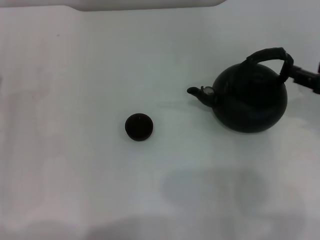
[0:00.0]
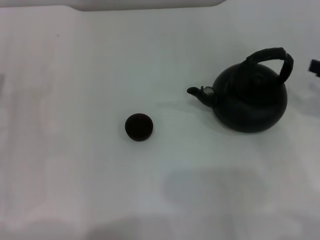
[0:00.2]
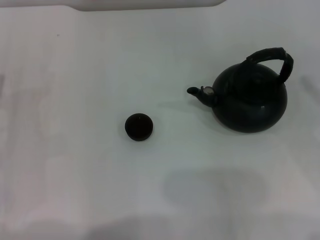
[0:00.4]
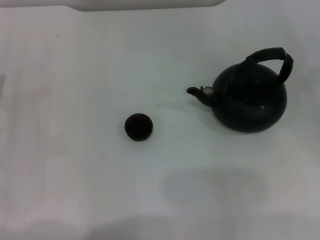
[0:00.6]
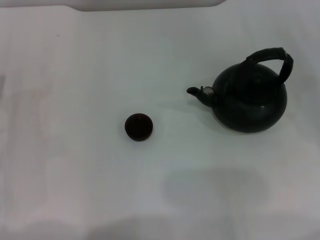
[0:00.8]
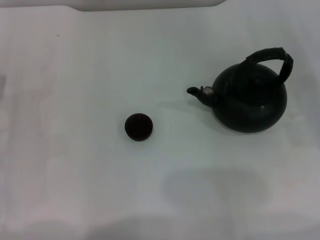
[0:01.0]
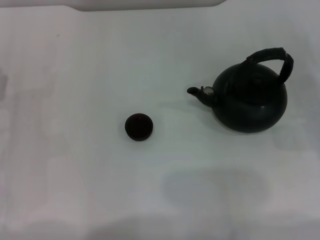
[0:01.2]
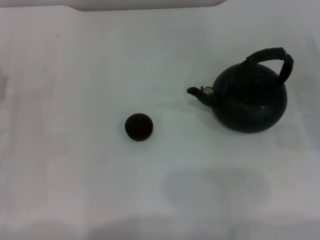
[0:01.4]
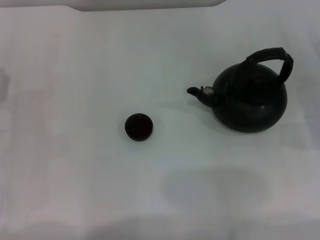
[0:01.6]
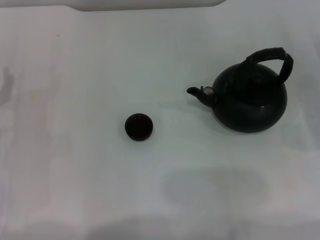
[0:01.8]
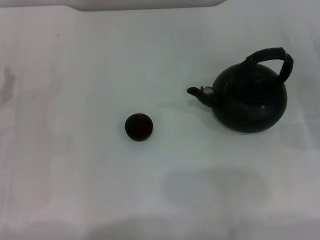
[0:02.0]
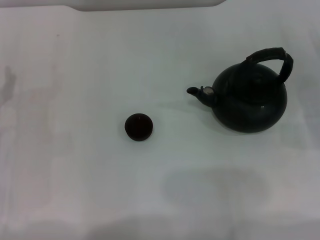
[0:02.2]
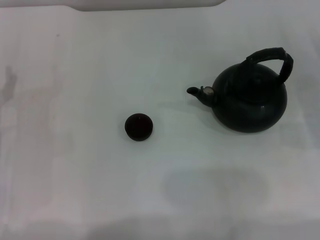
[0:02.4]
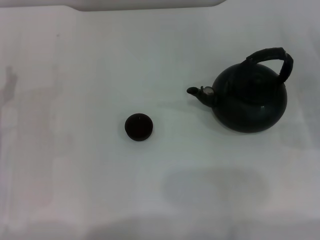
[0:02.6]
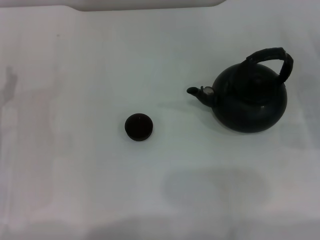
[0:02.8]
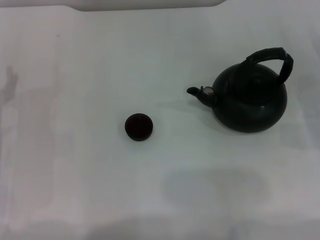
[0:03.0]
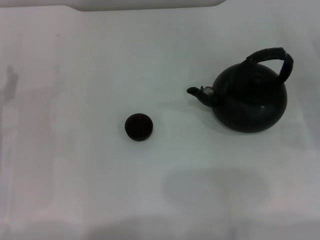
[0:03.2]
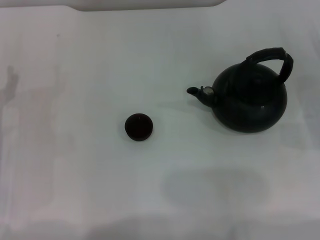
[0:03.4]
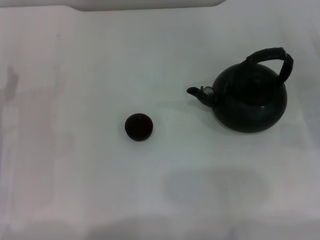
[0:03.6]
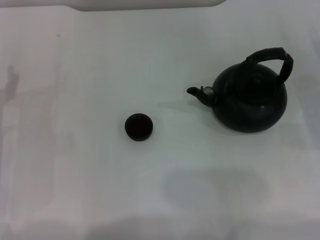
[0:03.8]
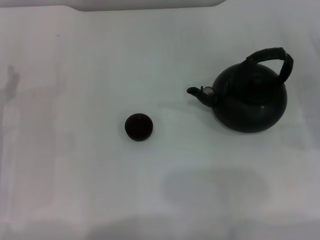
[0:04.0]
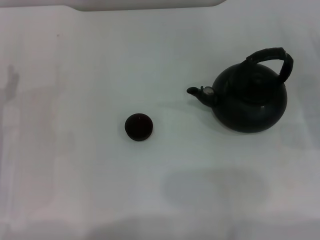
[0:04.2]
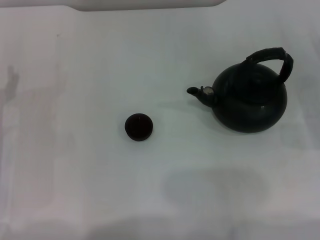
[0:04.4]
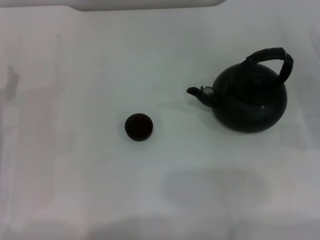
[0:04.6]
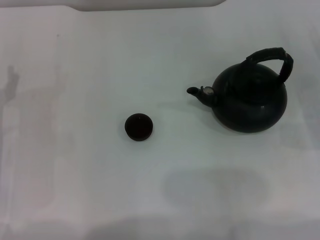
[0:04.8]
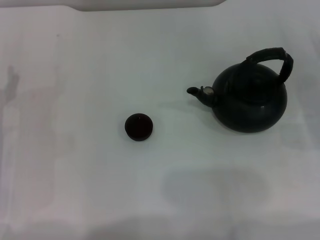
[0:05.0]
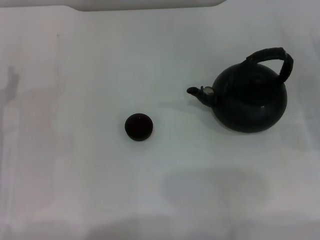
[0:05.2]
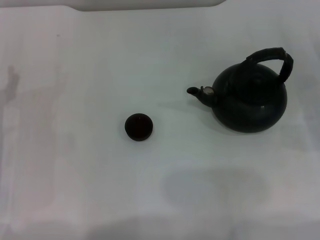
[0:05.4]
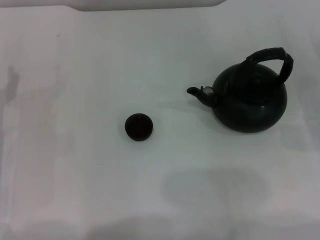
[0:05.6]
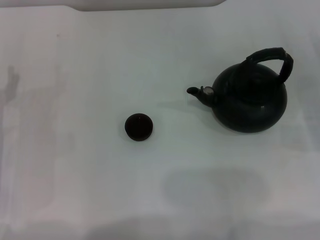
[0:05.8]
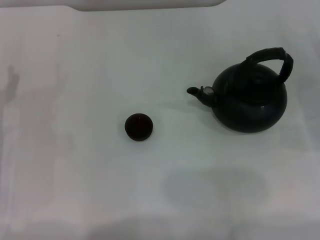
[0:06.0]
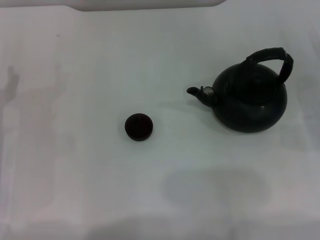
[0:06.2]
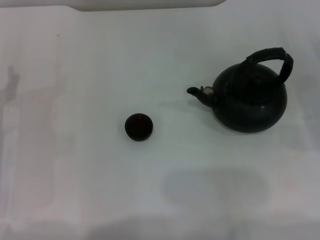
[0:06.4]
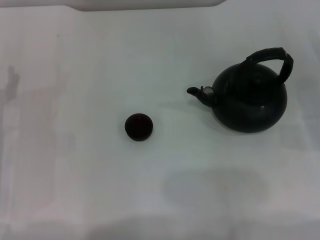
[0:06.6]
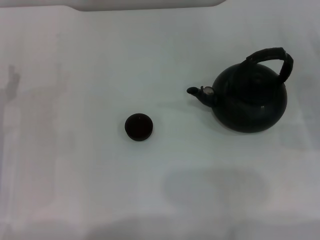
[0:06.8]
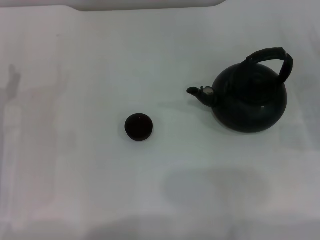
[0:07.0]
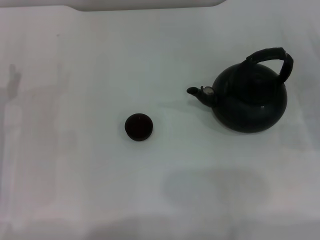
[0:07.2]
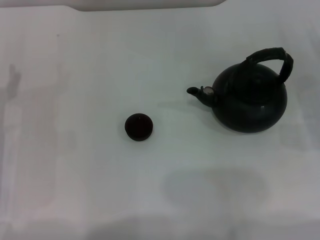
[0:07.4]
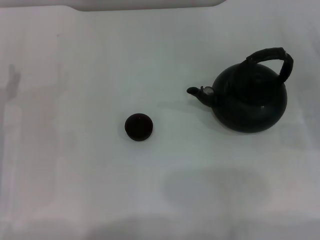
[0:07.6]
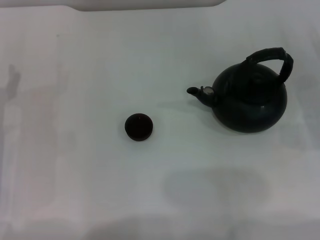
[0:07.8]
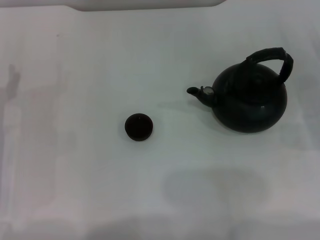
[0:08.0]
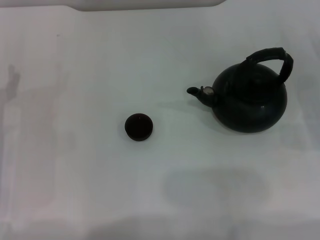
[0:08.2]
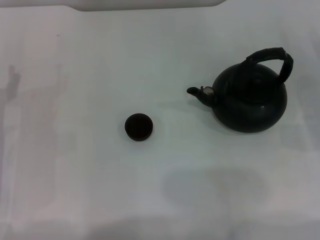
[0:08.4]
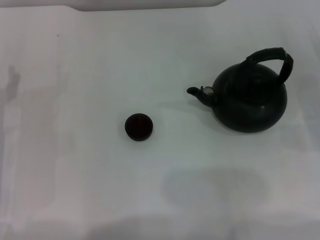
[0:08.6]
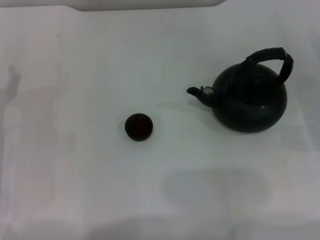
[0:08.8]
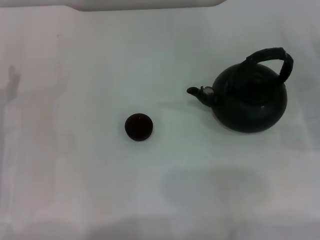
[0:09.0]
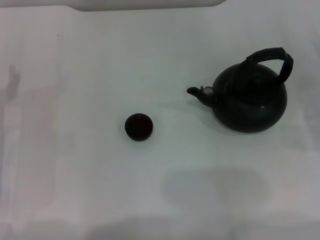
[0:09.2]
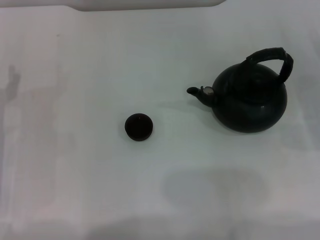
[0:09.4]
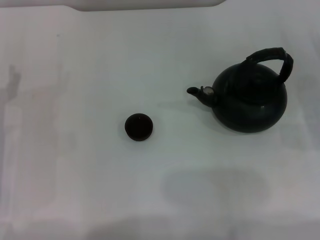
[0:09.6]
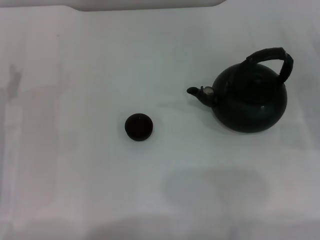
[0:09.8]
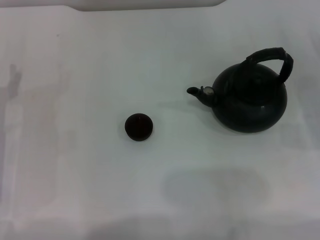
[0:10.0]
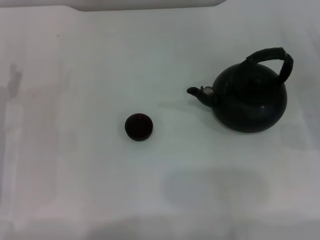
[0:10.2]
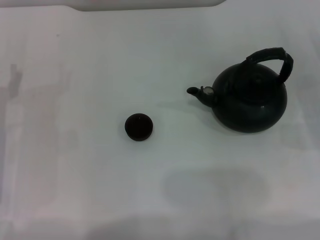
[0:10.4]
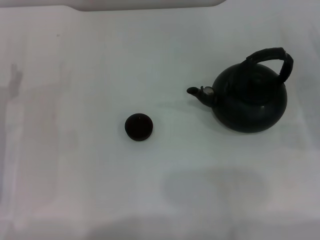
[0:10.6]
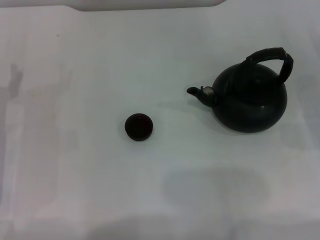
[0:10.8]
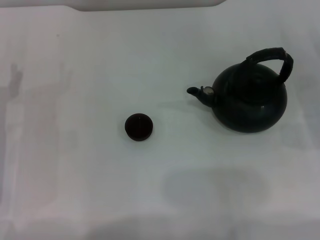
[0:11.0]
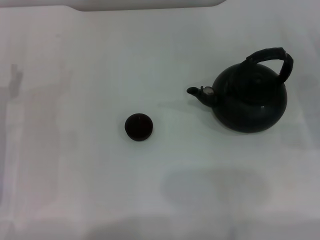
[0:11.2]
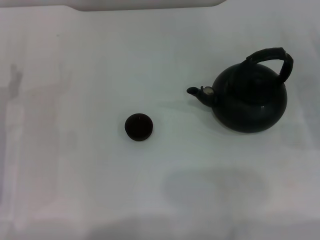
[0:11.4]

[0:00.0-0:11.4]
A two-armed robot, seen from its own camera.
Task of the whole recording: Grasp the handle of the teapot with one hand and pour tea into the teacup.
0:00.0 to 0:01.4: The right gripper goes about 15 cm downward and to the right.
0:01.4 to 0:08.6: Both grippers stay about where they are.
0:08.6 to 0:11.4: Neither gripper changes place.

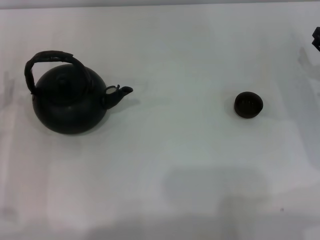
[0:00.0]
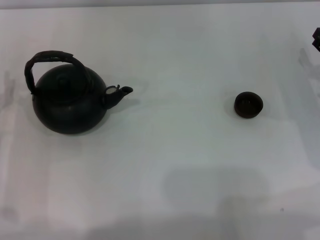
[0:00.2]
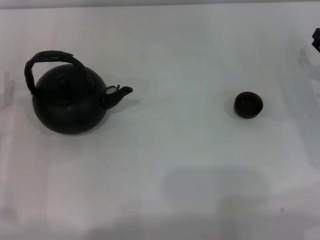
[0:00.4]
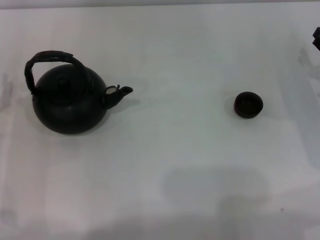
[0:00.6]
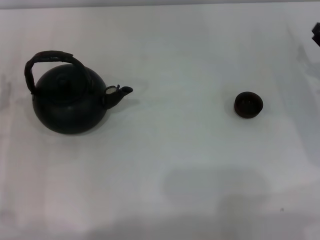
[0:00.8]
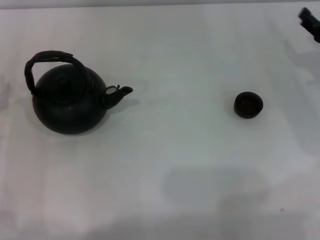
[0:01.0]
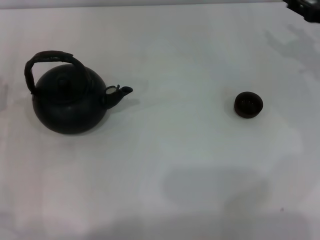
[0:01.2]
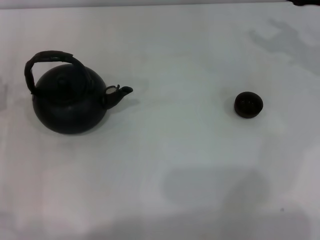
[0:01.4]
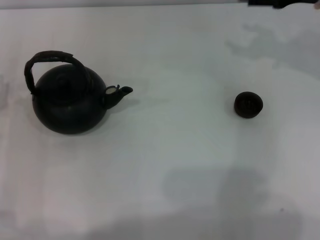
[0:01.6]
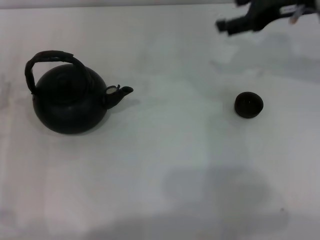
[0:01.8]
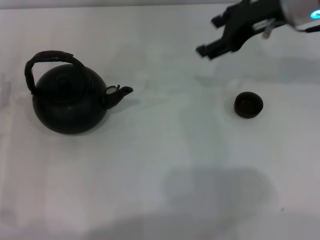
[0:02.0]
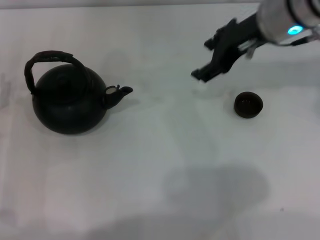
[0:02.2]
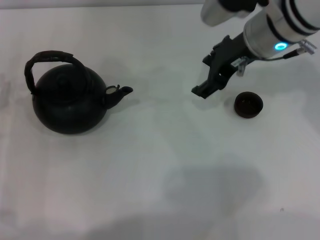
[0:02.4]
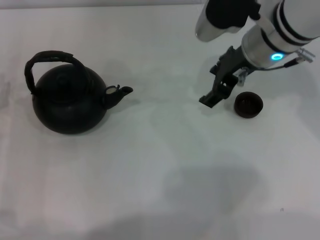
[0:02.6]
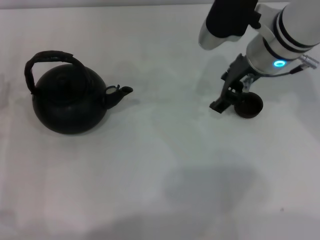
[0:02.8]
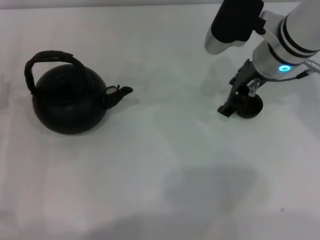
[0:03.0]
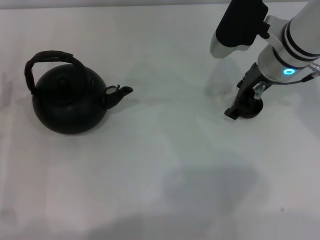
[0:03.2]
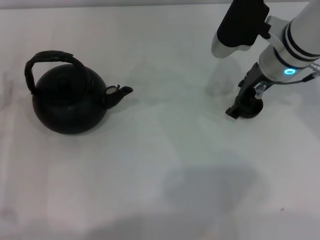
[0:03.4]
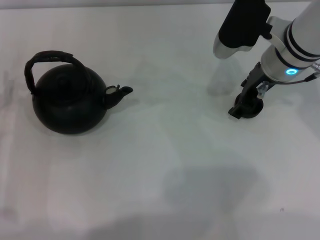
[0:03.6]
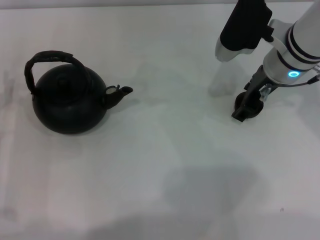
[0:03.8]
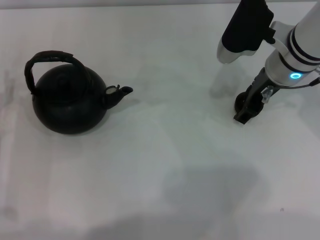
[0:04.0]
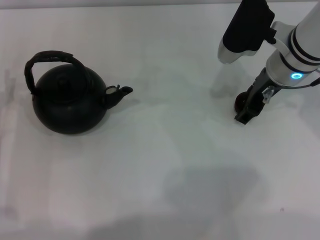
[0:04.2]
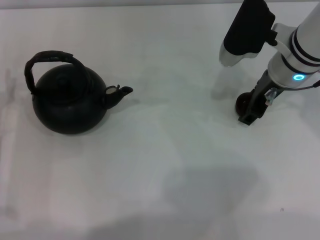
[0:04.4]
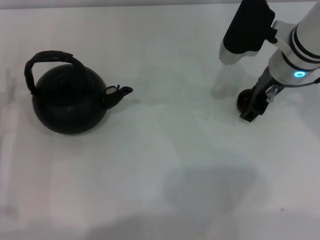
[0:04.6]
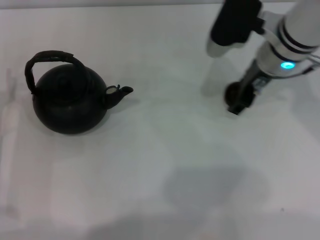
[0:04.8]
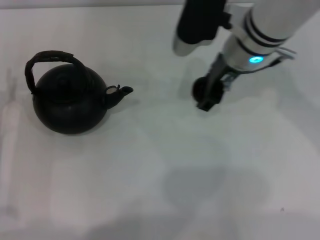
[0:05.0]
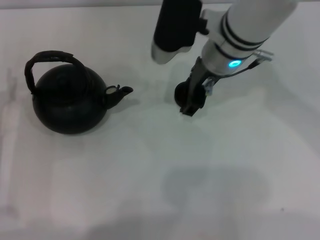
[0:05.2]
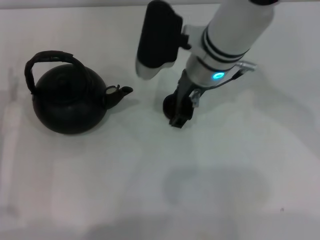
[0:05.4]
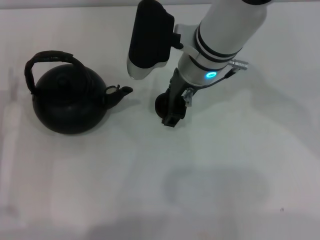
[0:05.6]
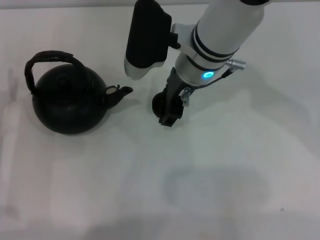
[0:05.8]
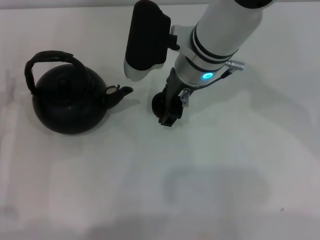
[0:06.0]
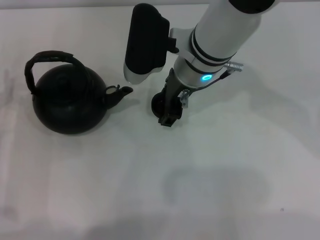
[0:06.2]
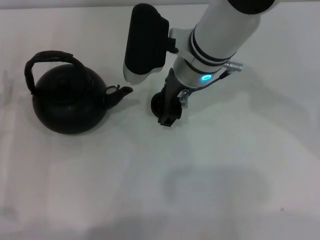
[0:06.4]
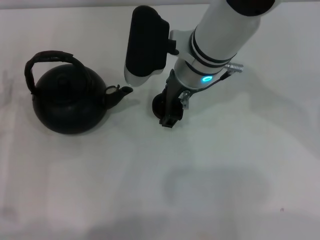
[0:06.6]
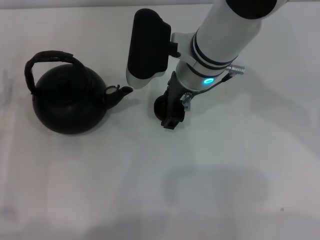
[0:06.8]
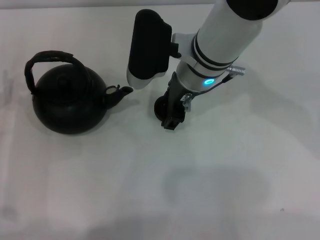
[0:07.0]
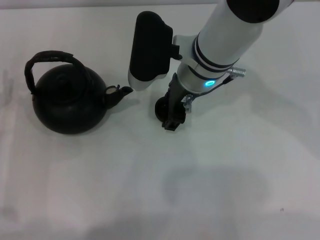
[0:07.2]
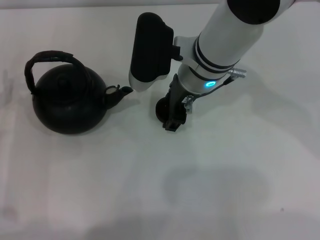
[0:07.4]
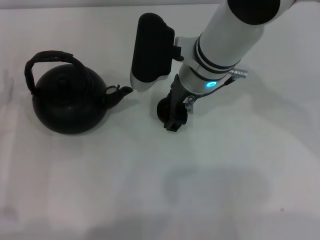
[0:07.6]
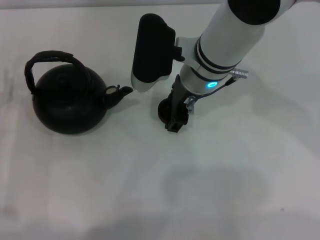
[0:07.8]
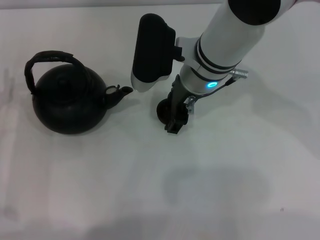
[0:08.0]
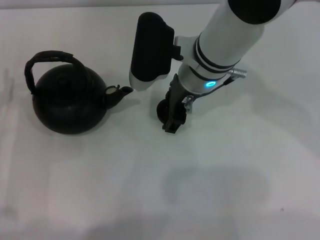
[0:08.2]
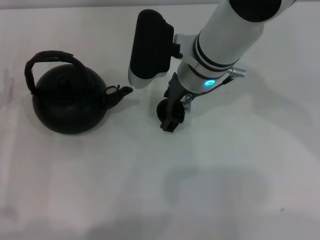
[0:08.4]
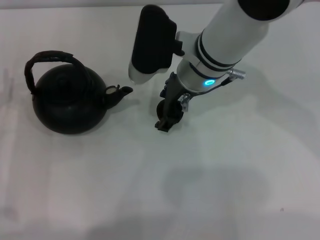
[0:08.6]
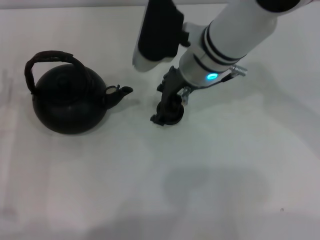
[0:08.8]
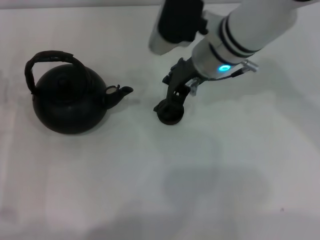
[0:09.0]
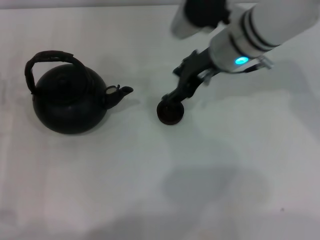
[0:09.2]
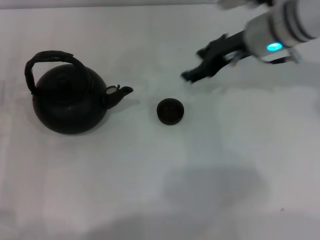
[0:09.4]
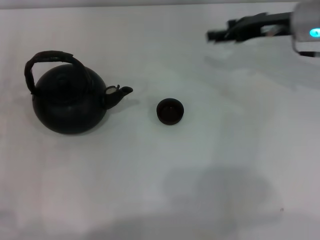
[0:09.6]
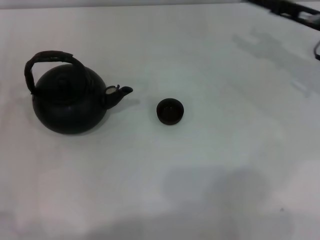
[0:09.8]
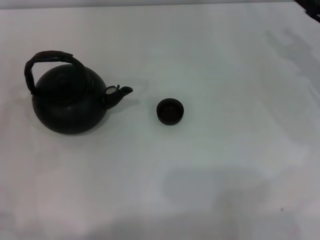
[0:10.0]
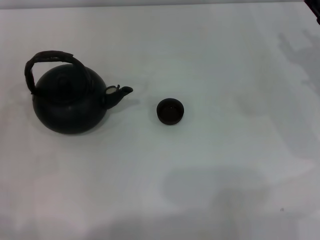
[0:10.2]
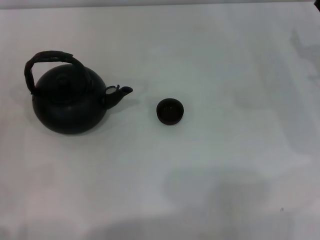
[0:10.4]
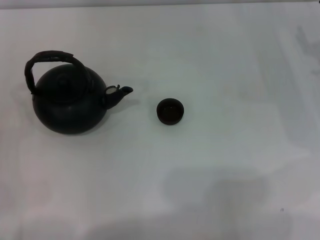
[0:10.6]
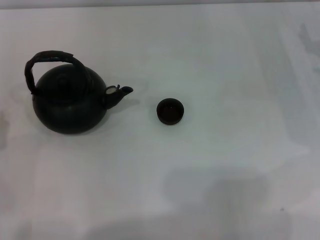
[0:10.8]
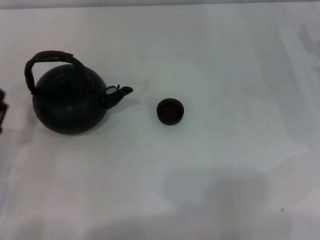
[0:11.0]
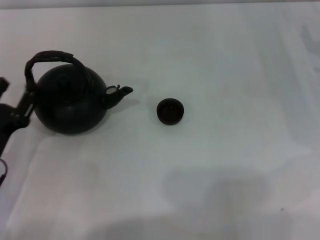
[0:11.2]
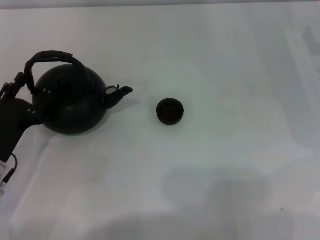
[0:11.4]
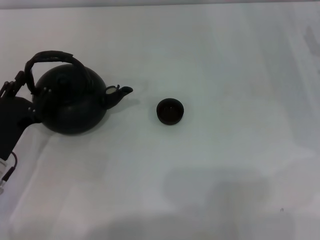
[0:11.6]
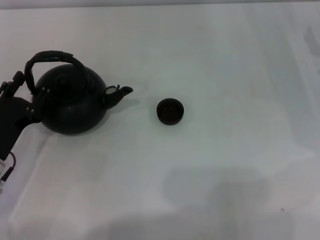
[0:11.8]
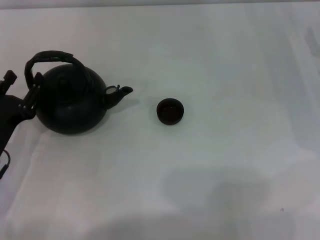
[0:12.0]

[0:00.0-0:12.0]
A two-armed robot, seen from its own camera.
Task of the whole recording: Grasp the handle of the teapot with one hand and pour tea into the teacup.
Step, 0:00.0 to 0:04.4: Pick up the teacup with the right gripper.
Step, 0:04.6 to 0:09.0: Place the teacup in the center of view with the right gripper.
0:00.0 to 0:01.6: The right gripper travels upward, forward and to the left by about 20 cm.
0:01.6 to 0:03.0: The right gripper is displaced to the left by some 10 cm.
0:03.0 to 0:04.4: The grippers move only a little.
0:04.4 to 0:06.0: The right gripper is displaced to the left by about 15 cm.
0:06.0 to 0:09.0: There are only small adjustments of the grippers.
0:09.0 to 0:10.4: The right gripper is displaced to the right by some 25 cm.
0:10.4 to 0:12.0: The left gripper travels to the right by roughly 5 cm.
